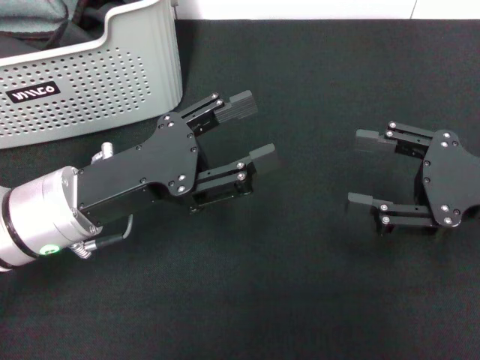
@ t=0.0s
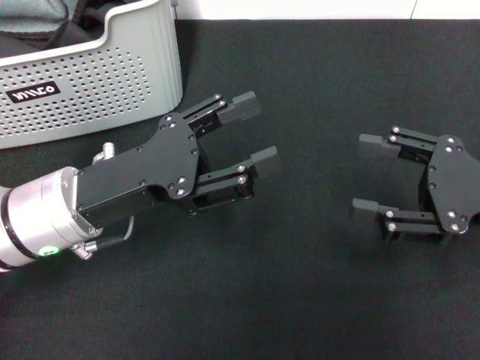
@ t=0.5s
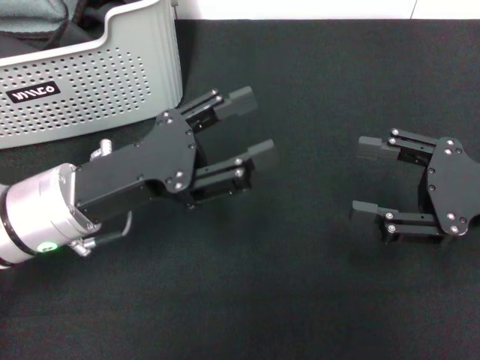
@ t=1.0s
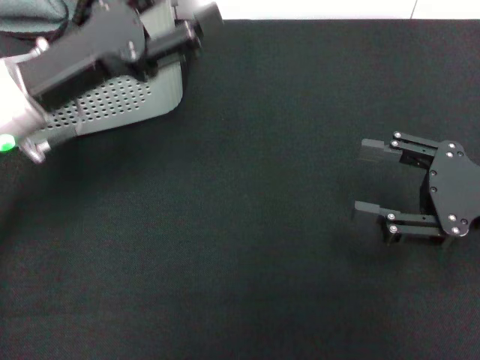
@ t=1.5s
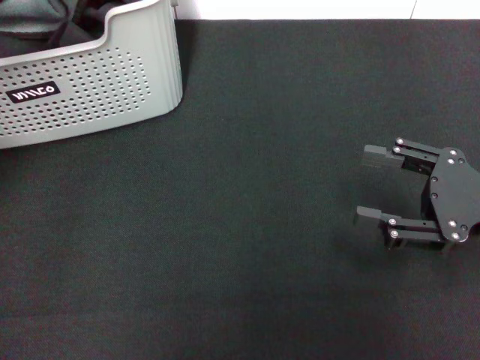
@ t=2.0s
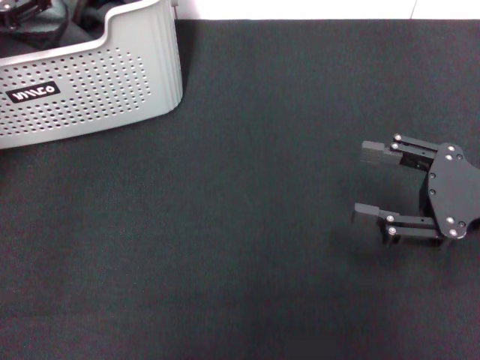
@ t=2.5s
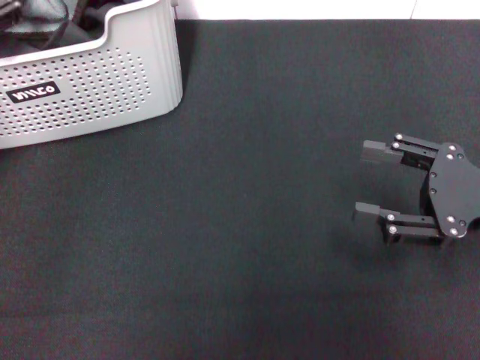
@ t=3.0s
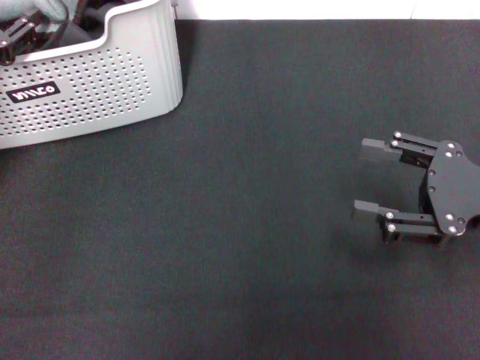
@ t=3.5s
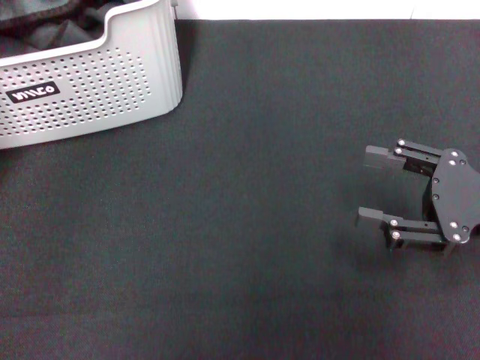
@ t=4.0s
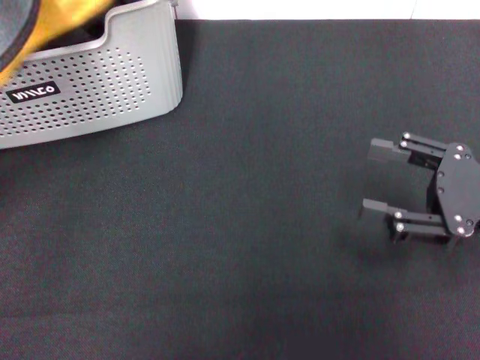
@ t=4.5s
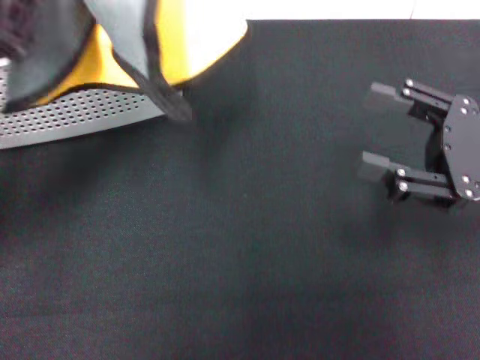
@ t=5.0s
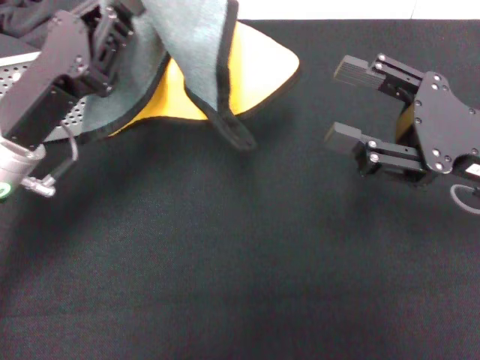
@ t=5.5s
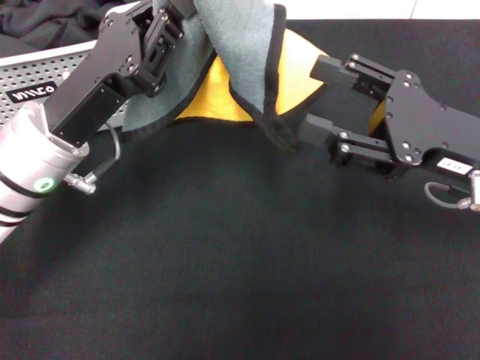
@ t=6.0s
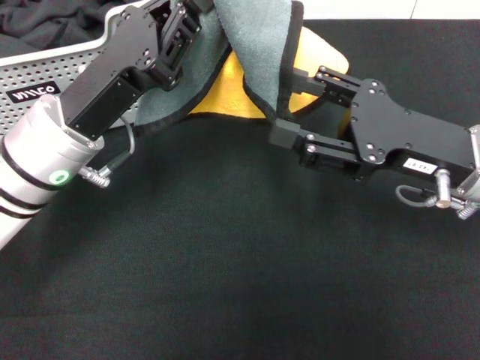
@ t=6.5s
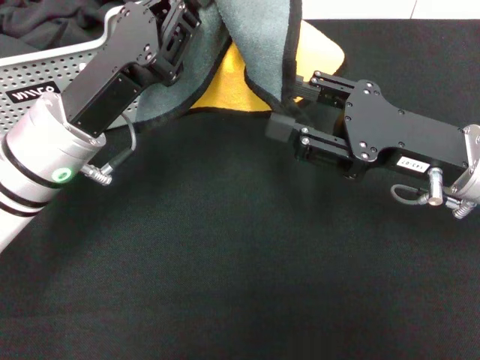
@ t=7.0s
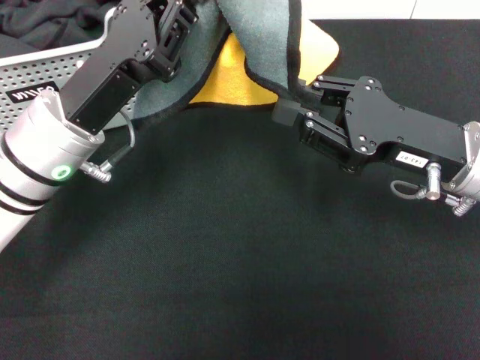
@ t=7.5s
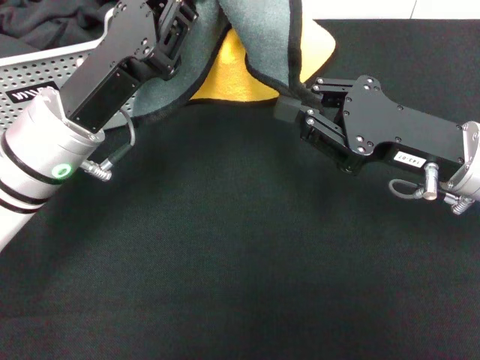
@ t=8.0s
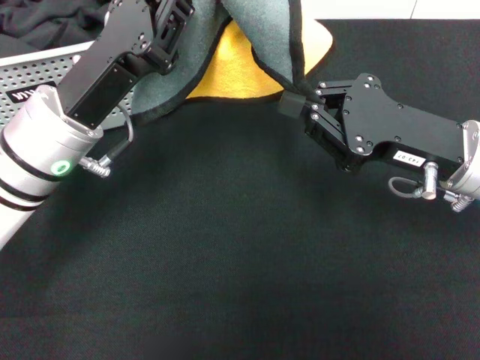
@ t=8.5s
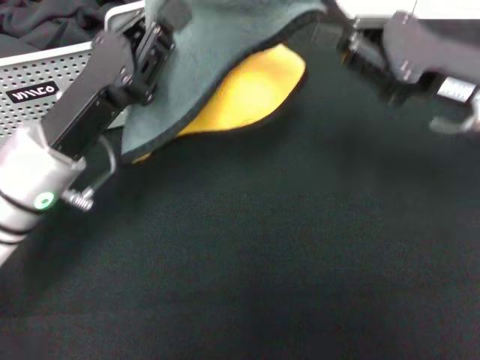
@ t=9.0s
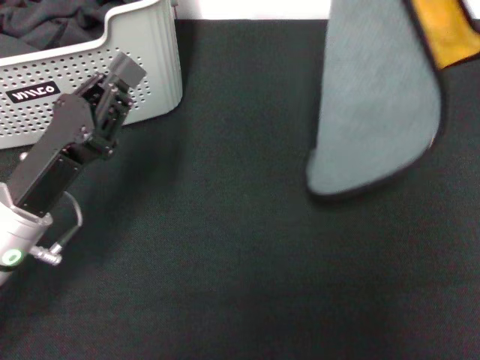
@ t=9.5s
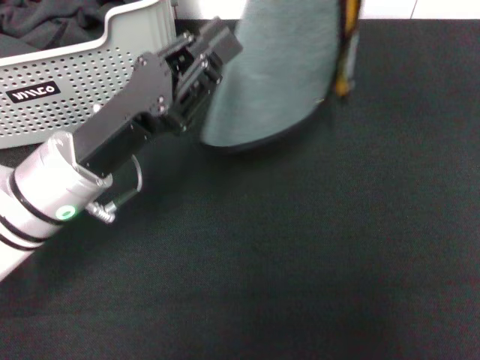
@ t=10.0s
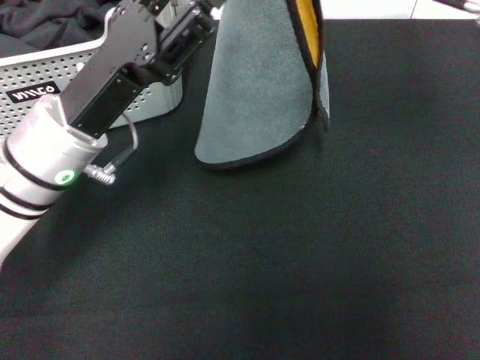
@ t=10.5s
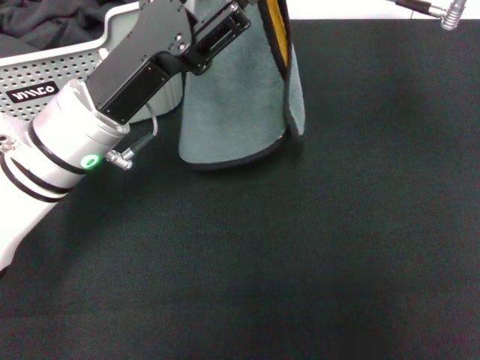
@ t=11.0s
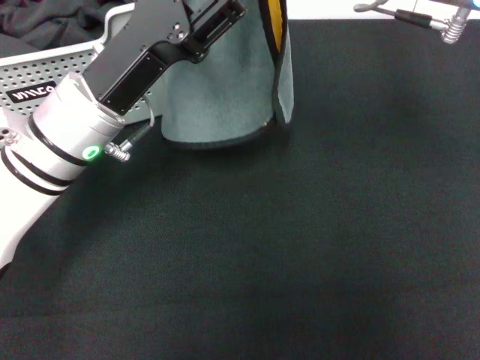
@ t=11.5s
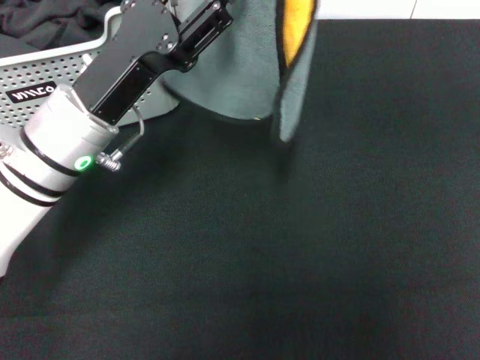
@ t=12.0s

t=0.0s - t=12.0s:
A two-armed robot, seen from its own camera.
Task of the whole recording: pick up the towel from the storage box and lay it flat on the black tablecloth.
Step, t=0.0s - t=3.5s: Pick up a towel with the left gripper.
Step, t=4.0s - t=8.0s: Spread the towel flat with the left gripper.
t=0.0s - t=2.0s: The left gripper heads upward, to the left and forward, covering roughly 15 cm.
t=2.0s - t=4.0s: The left gripper shifts approximately 5 cm downward, and closes.
t=4.0s - t=6.0s: The left gripper is displaced to the right by about 15 cm, and closes up. The right gripper is displaced to the left by some 5 cm.
t=6.0s - t=8.0s: The right gripper closes.
t=8.0s - t=10.0s: The right gripper travels upward by approximately 20 cm.
t=10.0s - t=12.0s: The left gripper opens up.

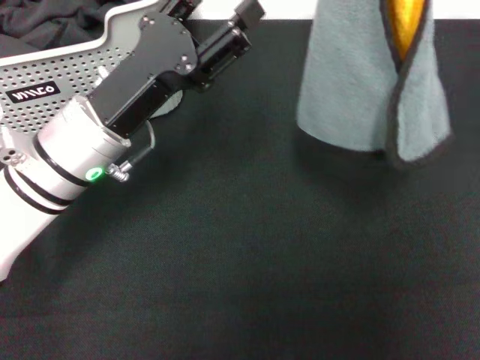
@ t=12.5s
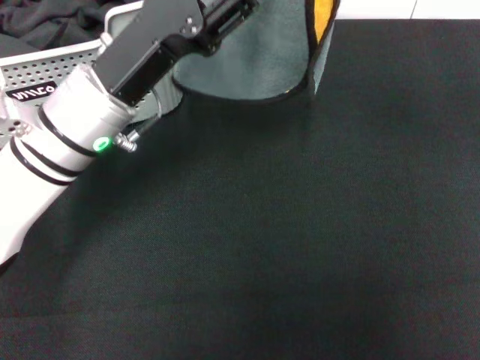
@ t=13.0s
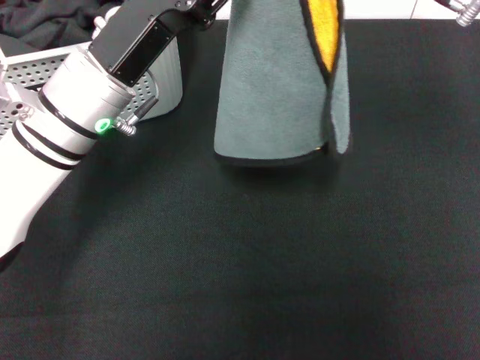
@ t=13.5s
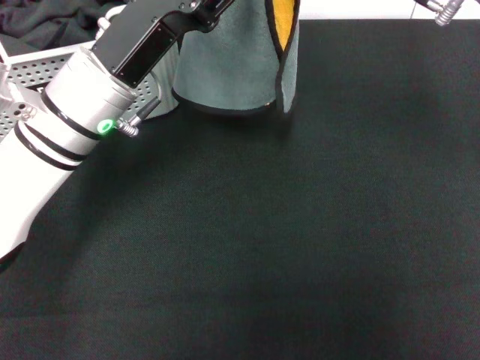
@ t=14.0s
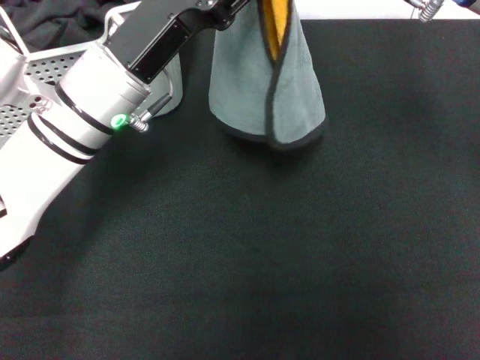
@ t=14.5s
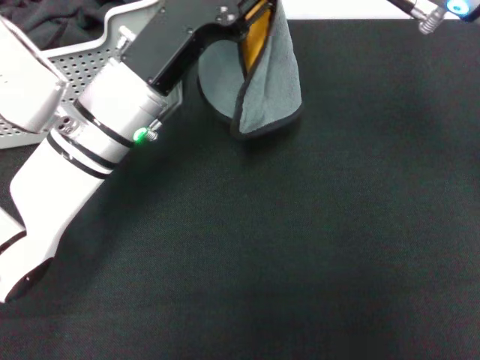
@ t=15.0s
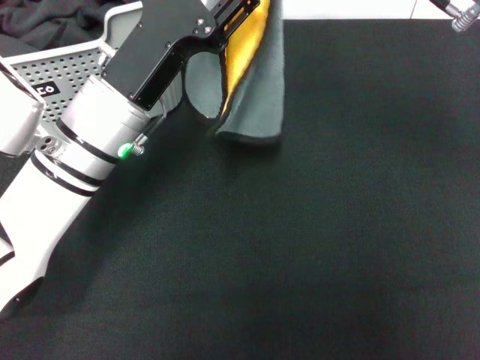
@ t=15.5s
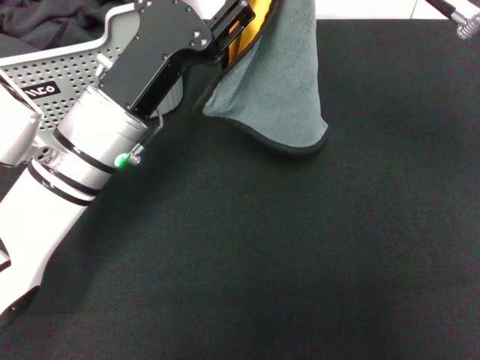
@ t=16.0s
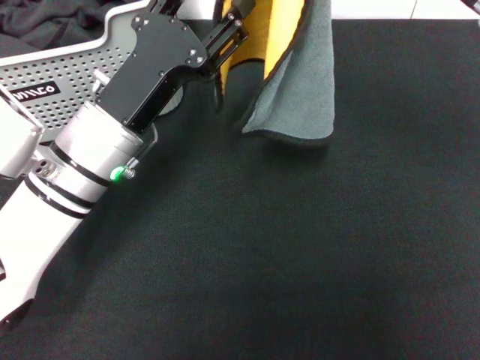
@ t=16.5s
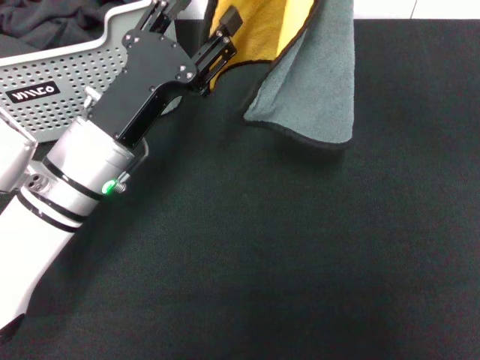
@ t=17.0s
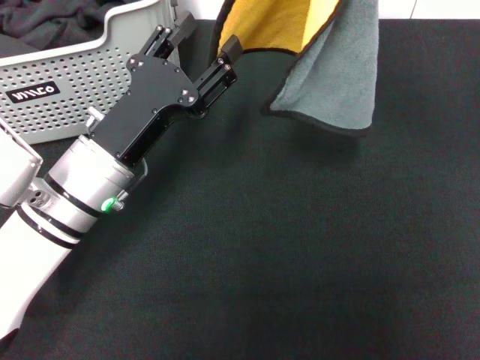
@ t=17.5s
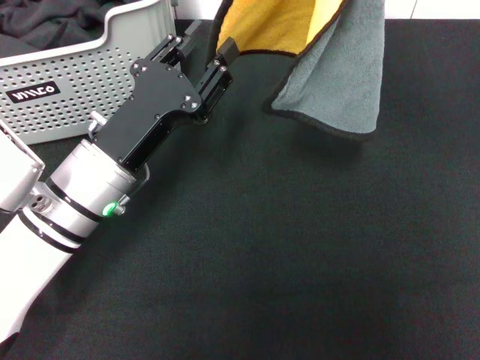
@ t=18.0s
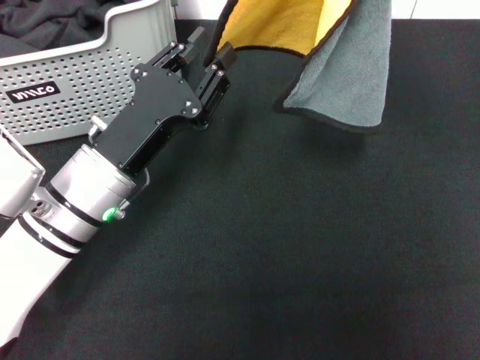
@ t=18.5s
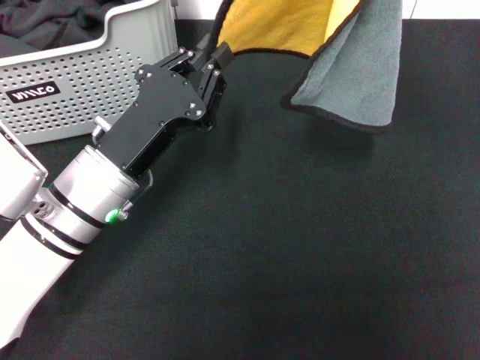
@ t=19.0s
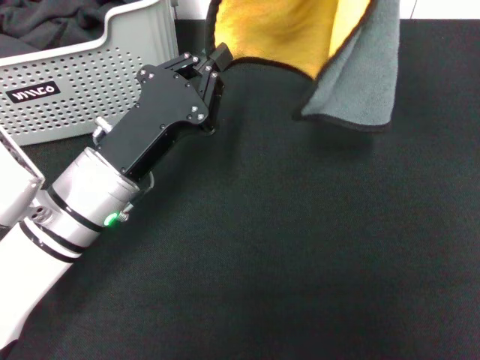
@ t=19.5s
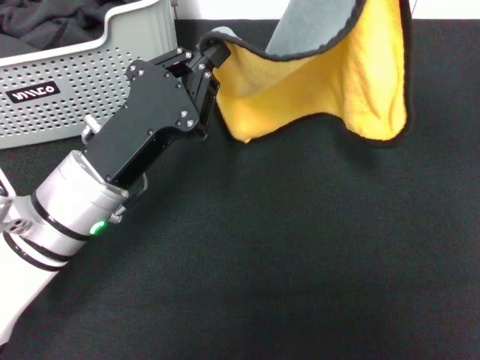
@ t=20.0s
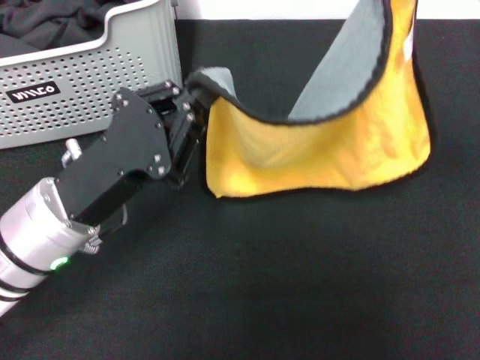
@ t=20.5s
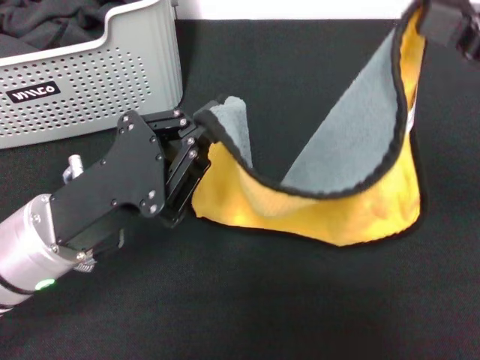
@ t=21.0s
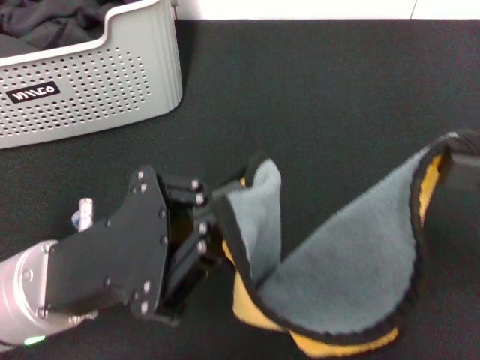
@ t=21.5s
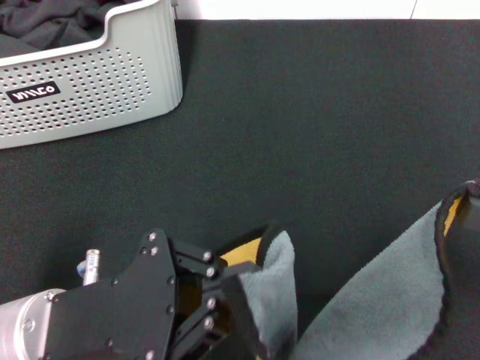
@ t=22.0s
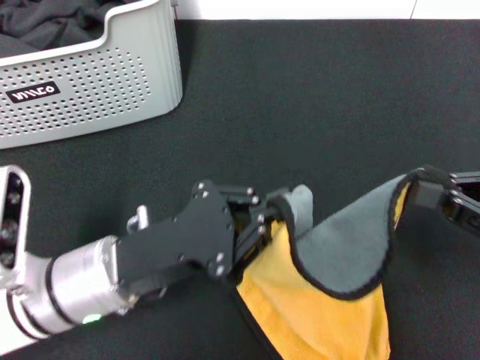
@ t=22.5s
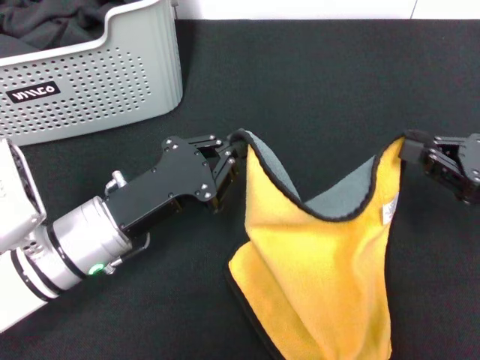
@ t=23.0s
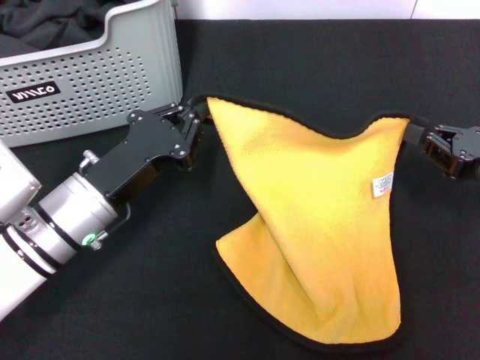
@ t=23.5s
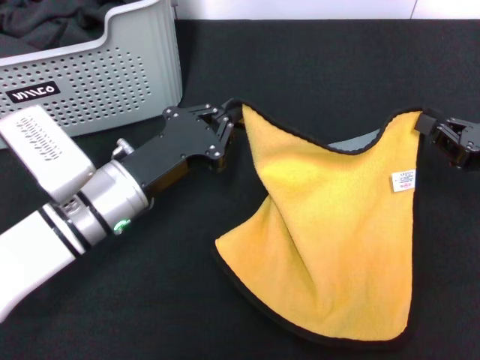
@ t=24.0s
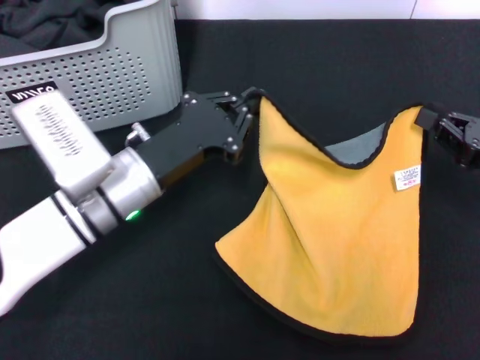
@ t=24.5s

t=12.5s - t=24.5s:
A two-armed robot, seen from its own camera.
Task of the whole recording: pick up the towel from the storage box and lay it flat on the black tablecloth.
t=12.5s - t=14.5s: The right gripper shifts roughly 5 cm to the left.
t=16.5s - t=18.5s: The left gripper closes.
t=18.5s - t=20.5s: The right gripper moves about 5 cm. Meanwhile the left gripper closes.
t=20.5s - t=22.5s: The right gripper moves downward and backward, approximately 15 cm.
t=22.5s - t=24.5s: The left gripper goes roughly 10 cm forward. Meanwhile the right gripper moves forward, some 5 cm.

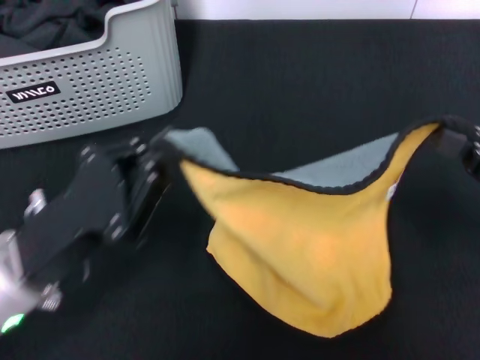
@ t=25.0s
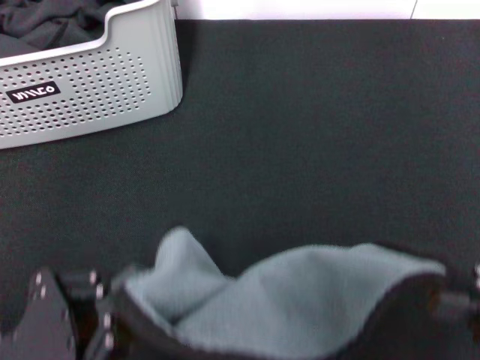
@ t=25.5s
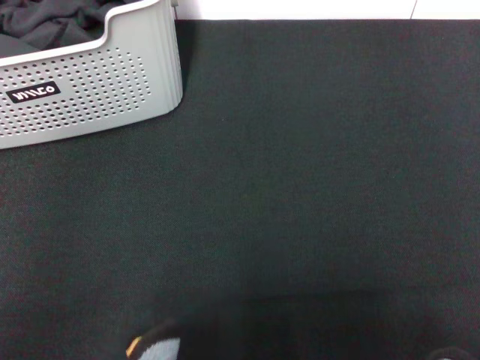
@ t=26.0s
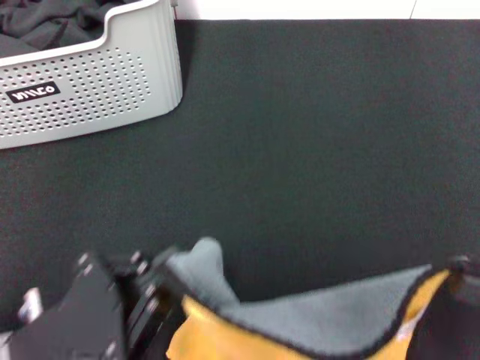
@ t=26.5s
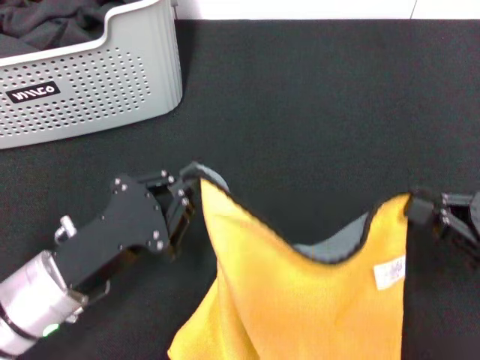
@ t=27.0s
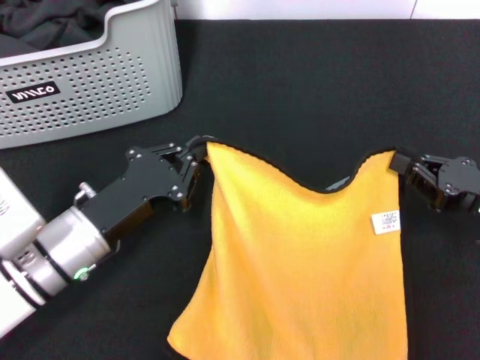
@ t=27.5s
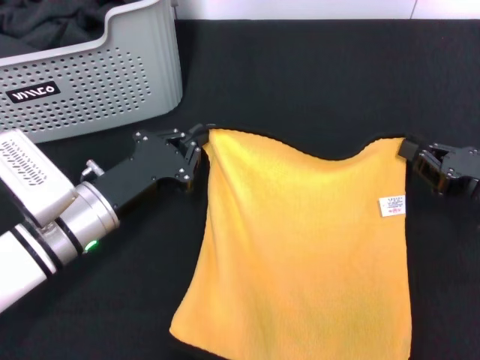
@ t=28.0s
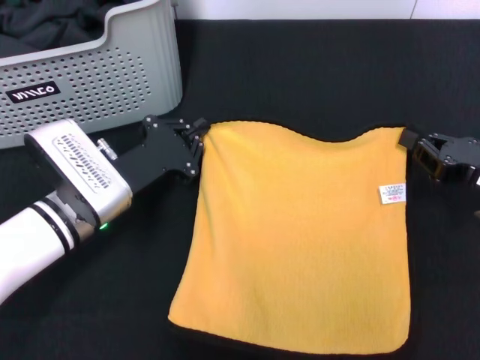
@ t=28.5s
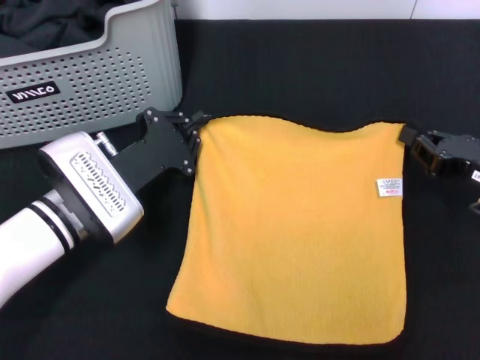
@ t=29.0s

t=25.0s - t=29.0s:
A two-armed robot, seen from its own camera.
Task of the whole recording: pick up the towel from the storage box and lay it flat on the black tablecloth.
t=25.0s - t=27.0s: The right gripper goes backward and returns, approximately 10 cm each way, while the left gripper moves some 15 cm backward and comes back.
t=27.0s - t=29.0s: The grippers both shift forward by some 10 cm.
